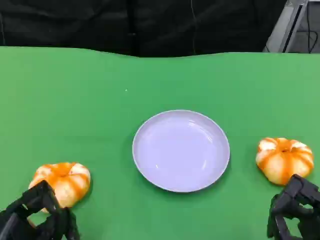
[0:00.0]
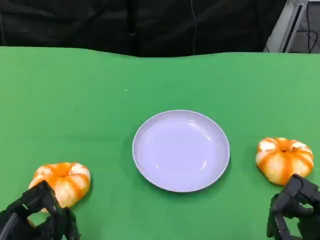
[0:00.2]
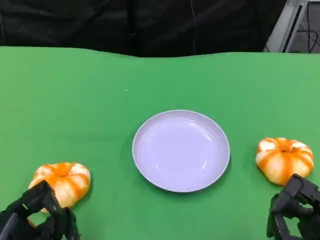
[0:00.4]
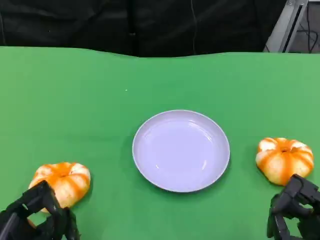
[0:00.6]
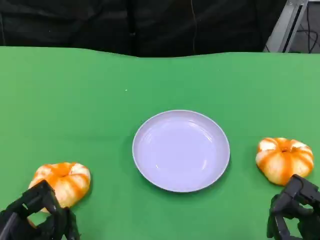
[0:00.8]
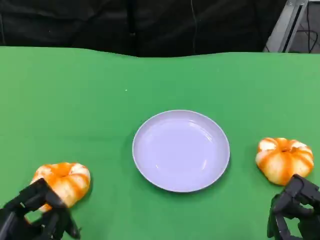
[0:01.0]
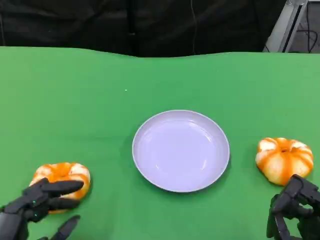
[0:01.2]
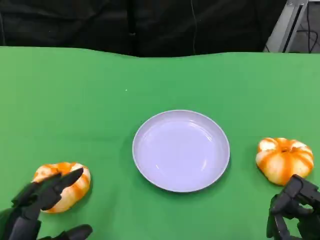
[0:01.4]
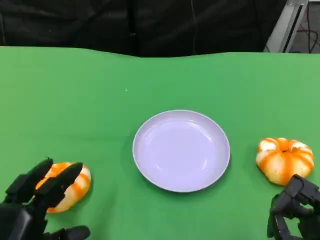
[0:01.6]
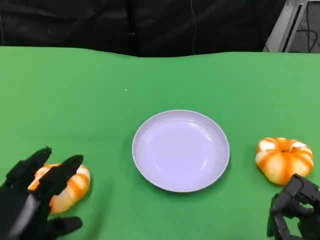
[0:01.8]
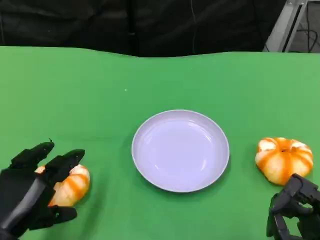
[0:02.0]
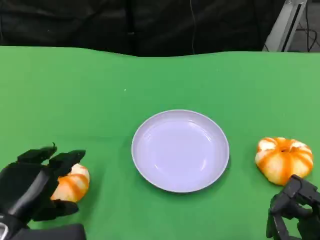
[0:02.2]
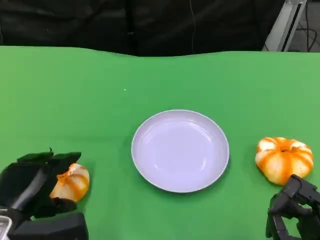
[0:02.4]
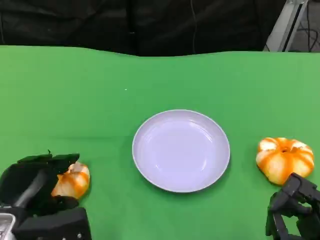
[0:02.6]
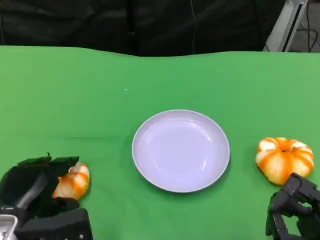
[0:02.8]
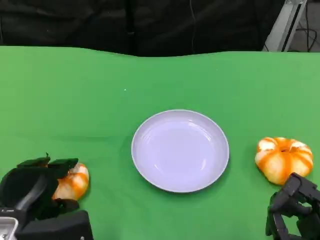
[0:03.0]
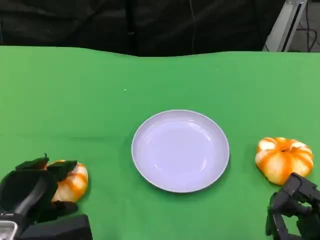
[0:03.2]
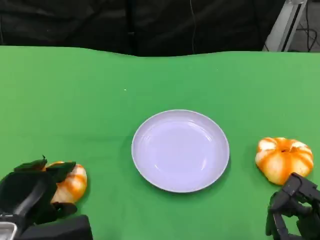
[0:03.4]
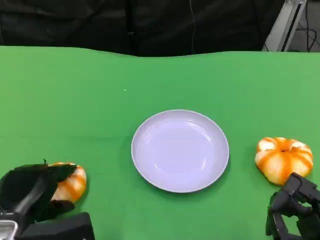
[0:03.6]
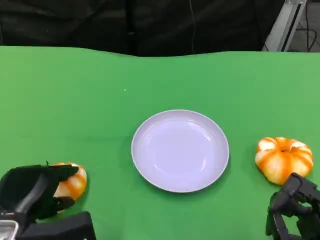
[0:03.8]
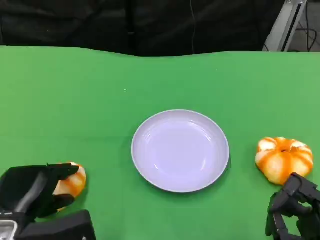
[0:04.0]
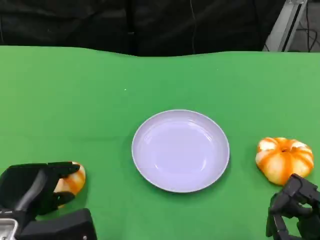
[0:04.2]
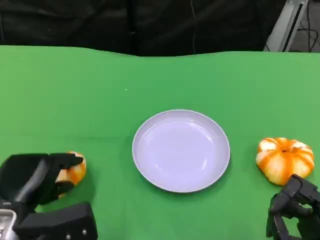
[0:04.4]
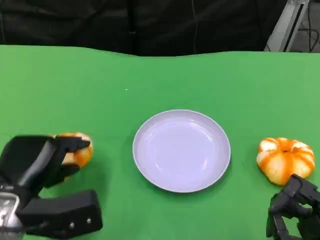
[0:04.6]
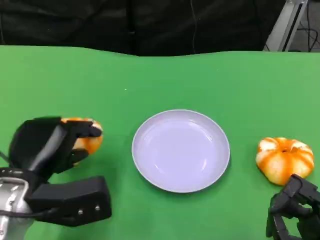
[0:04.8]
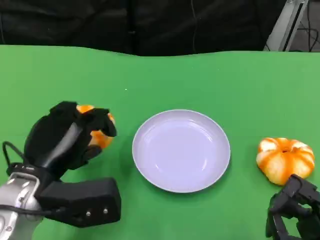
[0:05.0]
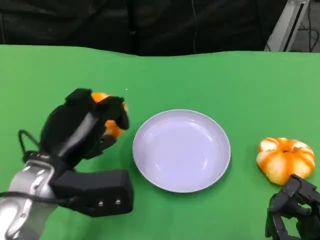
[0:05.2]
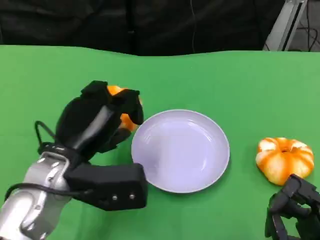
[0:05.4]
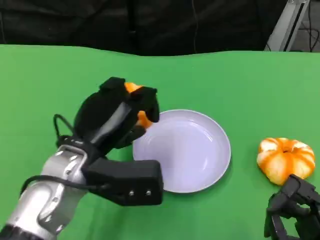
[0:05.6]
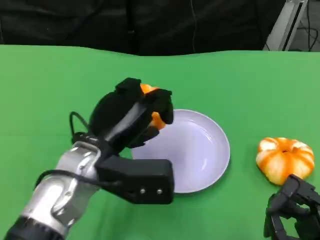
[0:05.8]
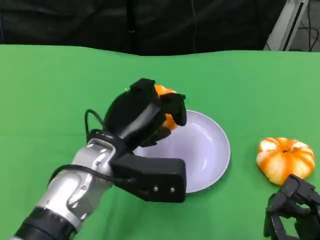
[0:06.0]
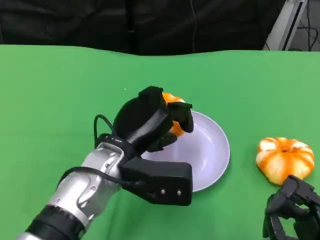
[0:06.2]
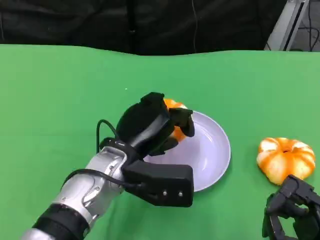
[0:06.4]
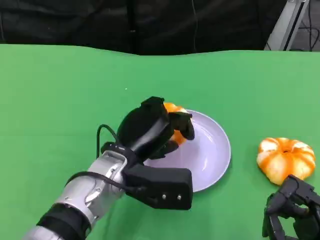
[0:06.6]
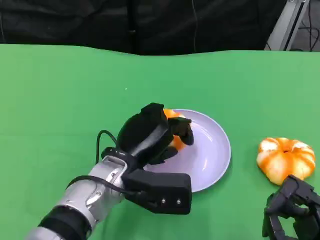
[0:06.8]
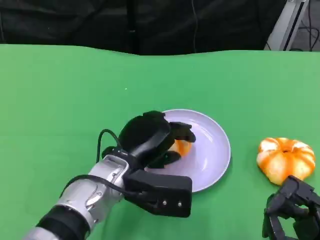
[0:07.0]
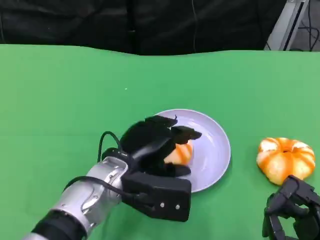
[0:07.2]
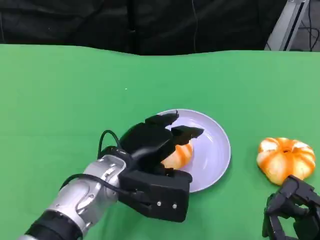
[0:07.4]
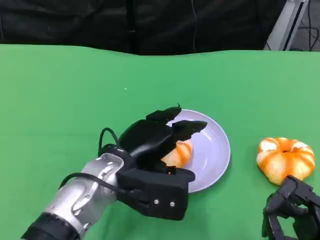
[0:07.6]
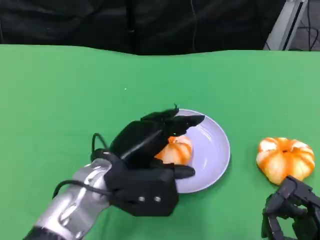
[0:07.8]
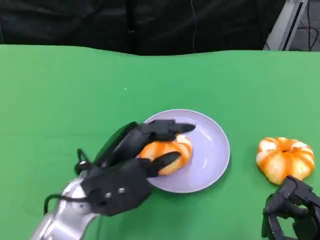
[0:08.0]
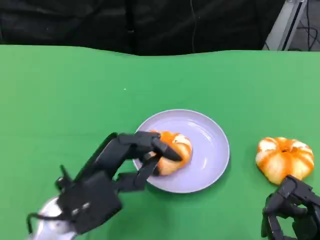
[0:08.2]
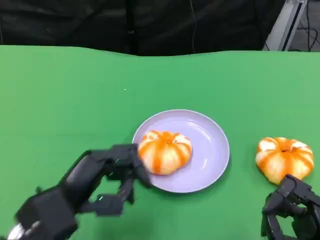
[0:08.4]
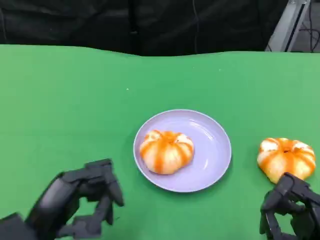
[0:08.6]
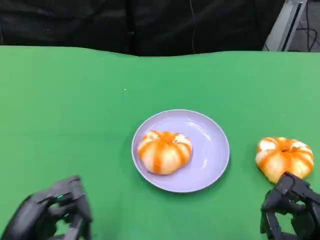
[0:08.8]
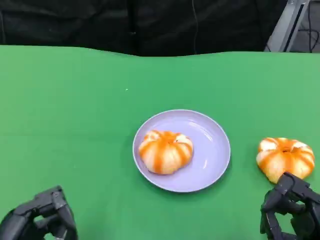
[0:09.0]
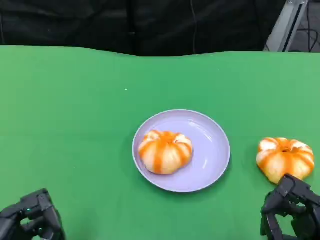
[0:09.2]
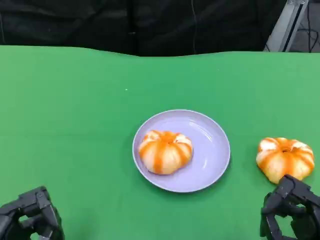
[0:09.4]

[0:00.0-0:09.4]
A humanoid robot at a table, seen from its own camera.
Task of the whole recording: Grasp the bread from the table and place it into the plate.
0:01.6 to 0:03.2: The left hand is displaced forward by about 5 cm.
0:03.2 to 0:04.8: The left hand heads upward, covering roughly 5 cm.
0:04.8 to 0:06.2: The left hand moves to the right, some 10 cm.
0:07.8 to 0:09.4: The left hand shifts approximately 20 cm to the left and backward.

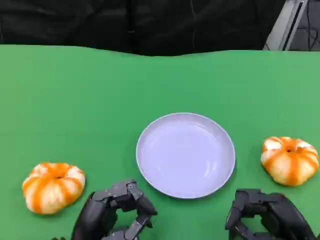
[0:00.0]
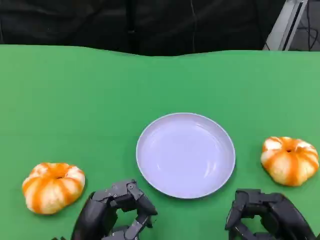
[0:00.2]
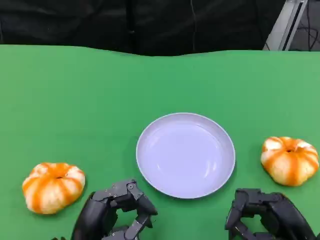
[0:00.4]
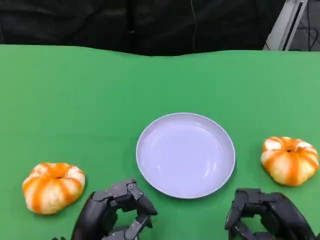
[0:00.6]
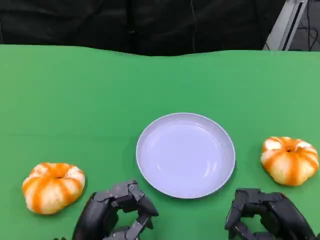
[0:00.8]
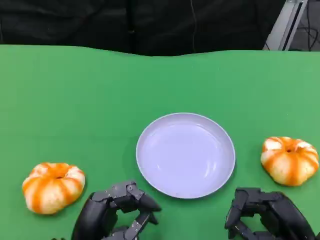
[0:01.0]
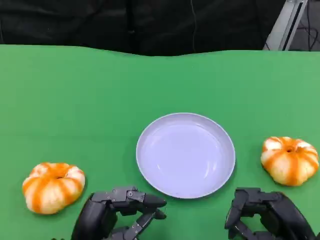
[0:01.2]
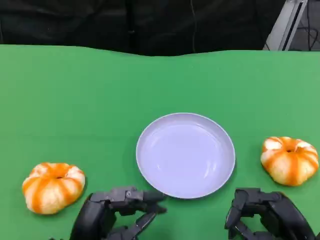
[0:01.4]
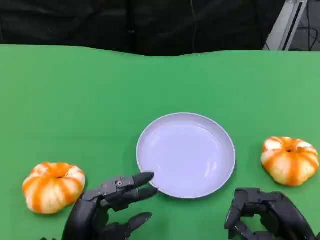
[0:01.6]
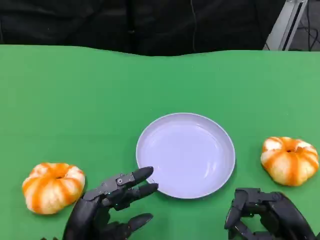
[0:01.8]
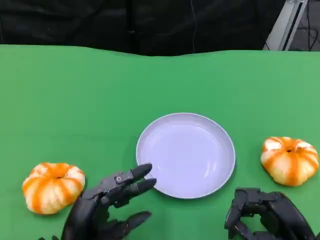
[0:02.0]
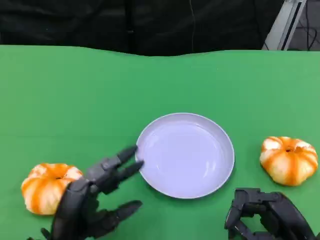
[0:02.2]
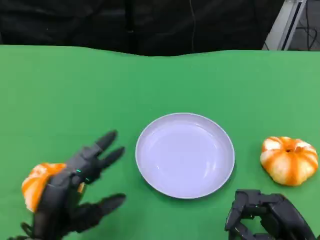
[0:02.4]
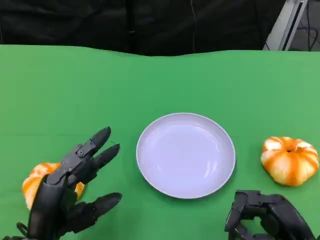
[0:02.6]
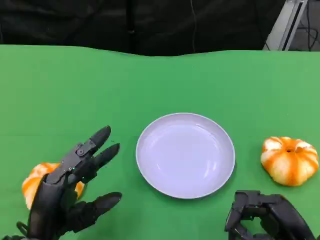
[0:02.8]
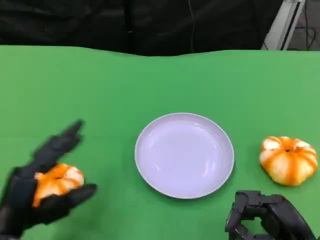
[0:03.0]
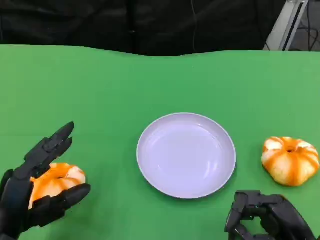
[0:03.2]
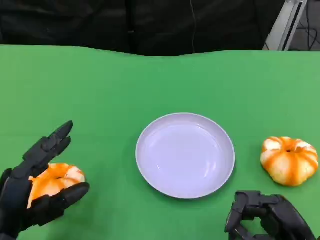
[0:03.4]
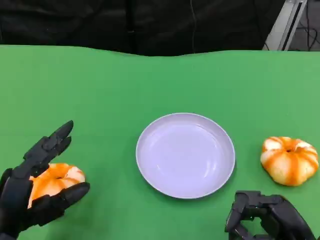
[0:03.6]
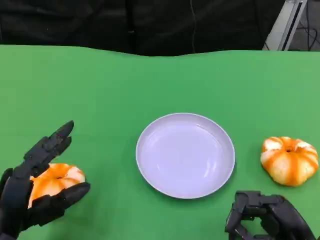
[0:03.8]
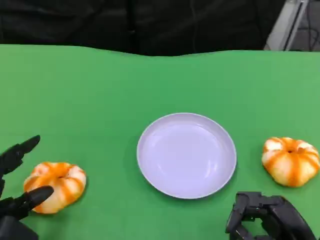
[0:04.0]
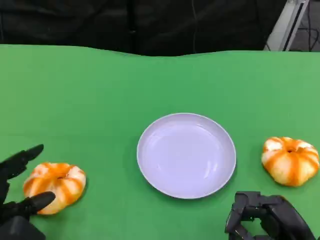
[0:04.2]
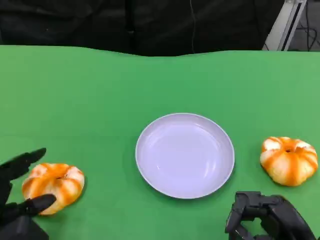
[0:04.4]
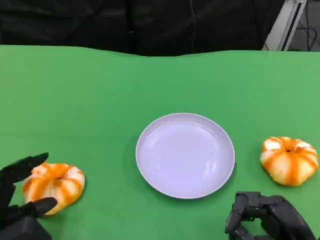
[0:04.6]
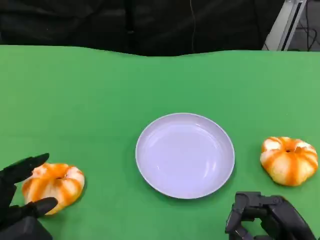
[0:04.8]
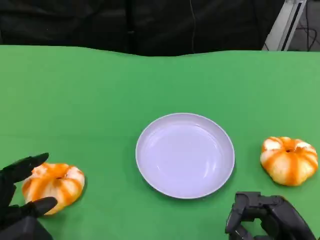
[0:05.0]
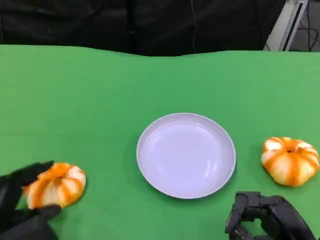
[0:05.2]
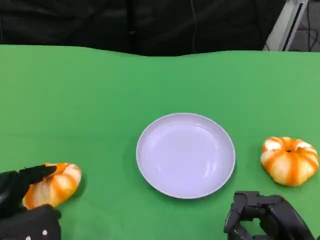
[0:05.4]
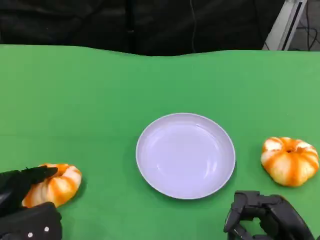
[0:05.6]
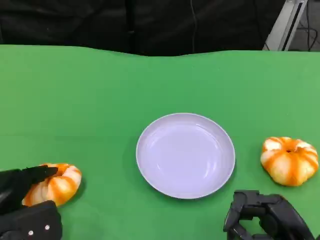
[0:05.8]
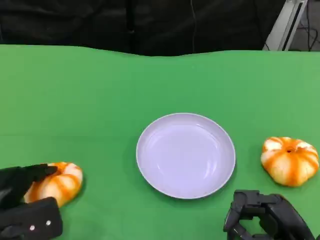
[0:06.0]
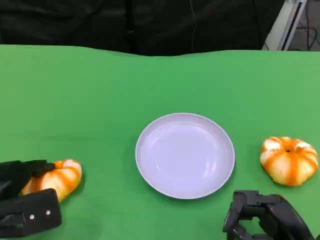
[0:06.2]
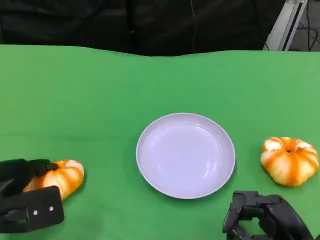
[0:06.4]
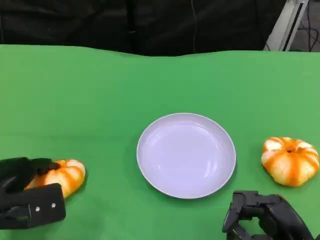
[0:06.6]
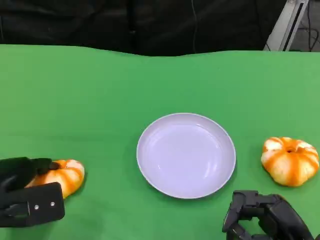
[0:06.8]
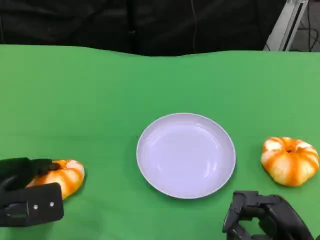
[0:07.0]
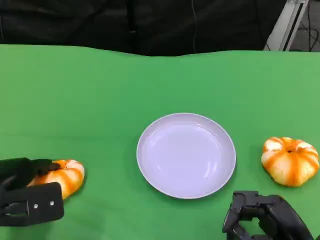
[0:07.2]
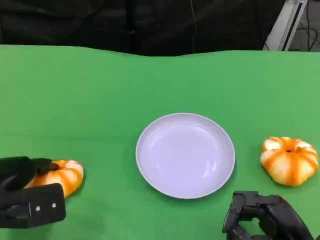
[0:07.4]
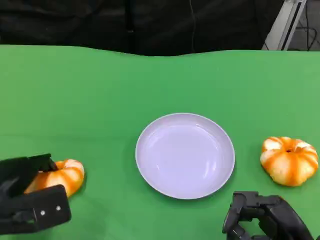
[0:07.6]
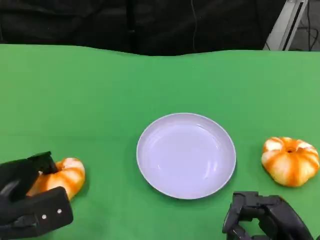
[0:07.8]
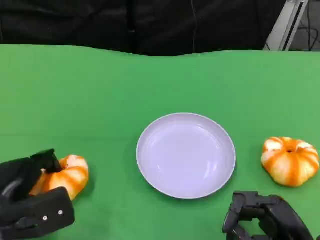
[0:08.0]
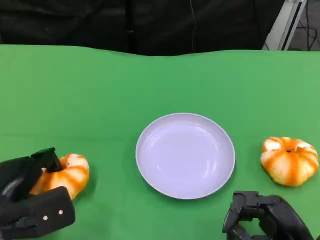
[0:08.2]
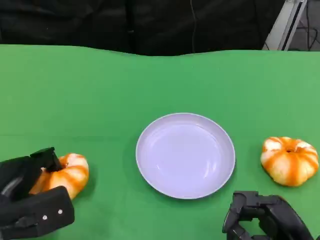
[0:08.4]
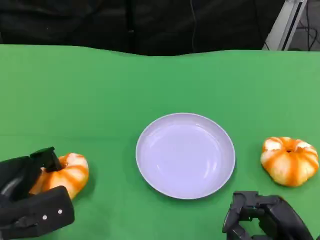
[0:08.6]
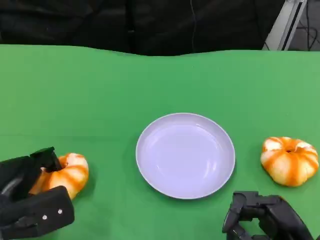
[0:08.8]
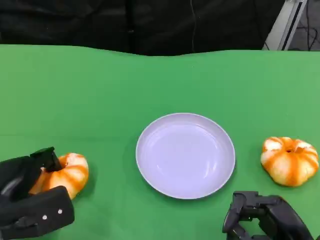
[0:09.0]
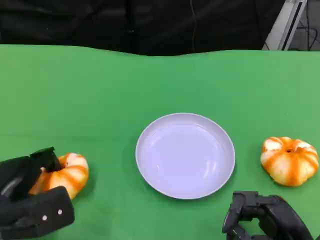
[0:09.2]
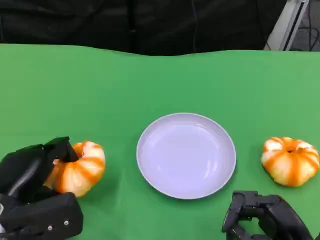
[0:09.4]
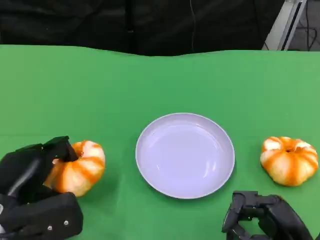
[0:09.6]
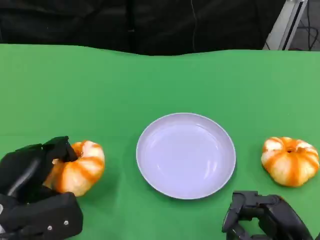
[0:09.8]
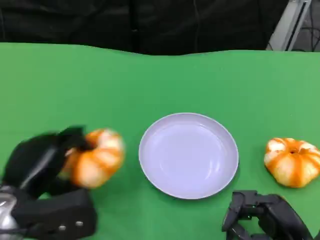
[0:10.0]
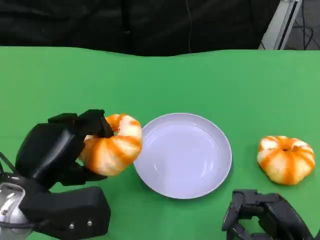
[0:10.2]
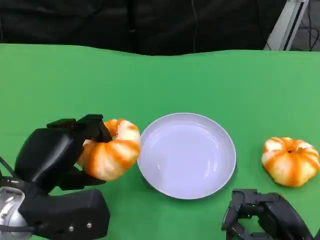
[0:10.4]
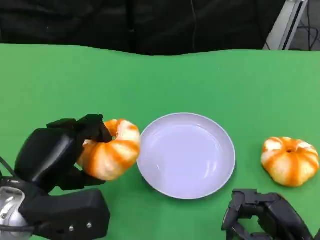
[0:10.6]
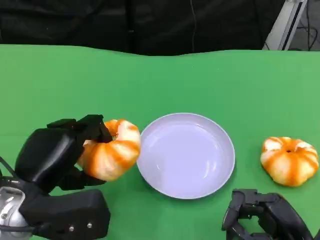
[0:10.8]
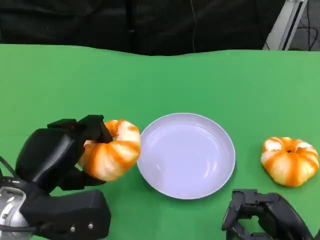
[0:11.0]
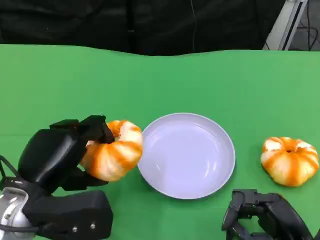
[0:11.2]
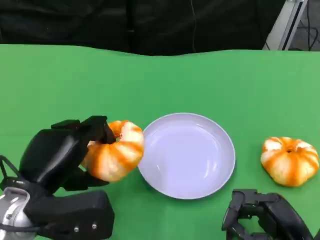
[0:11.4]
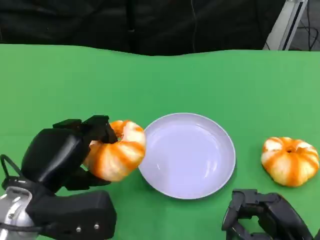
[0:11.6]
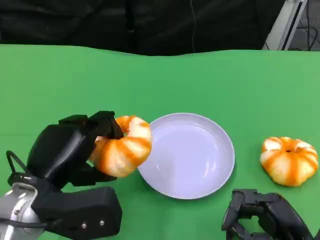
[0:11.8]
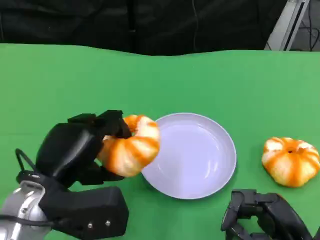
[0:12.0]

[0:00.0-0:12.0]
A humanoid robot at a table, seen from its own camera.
Task of the whole recording: Grasp the bread from the table and place it into the plate.
0:00.0 to 0:01.6: Neither hand changes place.
0:01.6 to 0:03.0: The left hand moves to the left and upward, about 10 cm.
0:04.4 to 0:06.0: The left hand shifts by about 5 cm.
0:06.0 to 0:09.0: The hands move only a little.
0:09.0 to 0:10.4: The left hand goes about 5 cm upward.
0:10.4 to 0:12.0: The hands stay close to where they were, moving slightly.

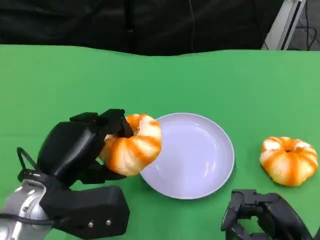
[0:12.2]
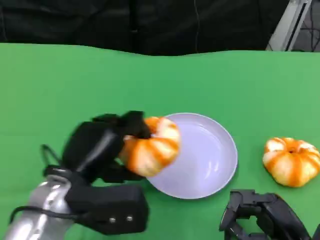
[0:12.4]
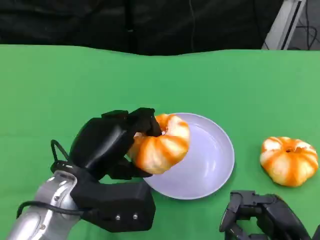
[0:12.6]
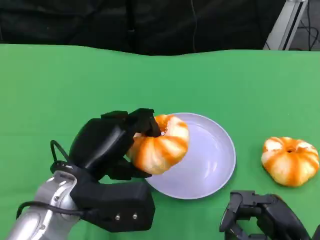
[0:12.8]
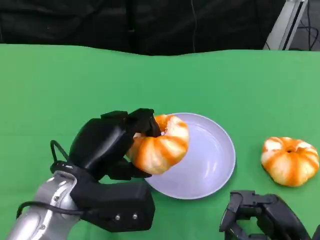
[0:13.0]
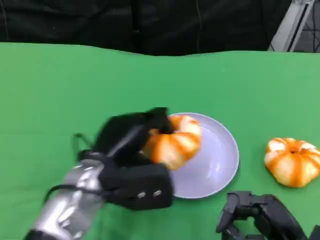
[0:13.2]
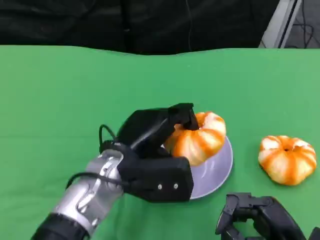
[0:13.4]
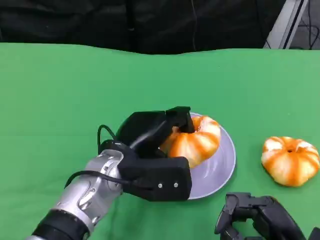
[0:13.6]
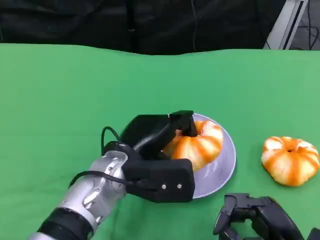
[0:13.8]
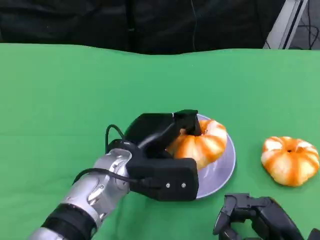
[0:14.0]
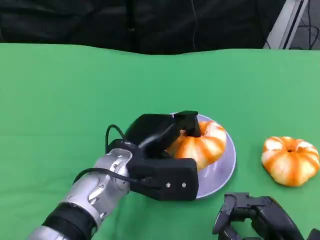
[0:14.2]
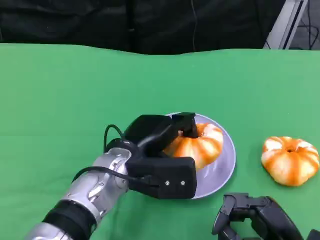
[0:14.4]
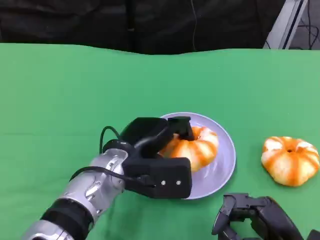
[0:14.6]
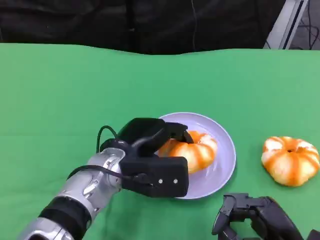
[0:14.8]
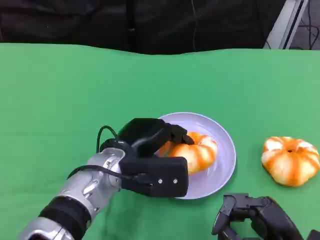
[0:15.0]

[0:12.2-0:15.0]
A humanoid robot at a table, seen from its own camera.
Task of the whole recording: Grasp the bread from the table and place it into the plate.
0:12.2 to 0:13.6: The left hand travels to the right and forward by about 10 cm.
0:13.6 to 0:15.0: The hands stay close to where they were, moving slightly.
